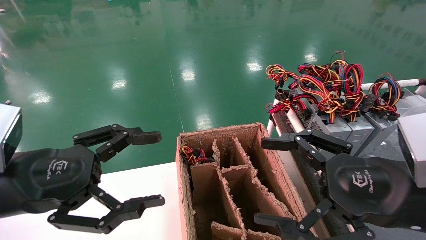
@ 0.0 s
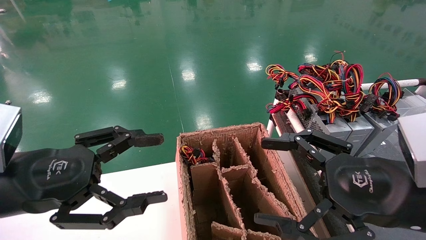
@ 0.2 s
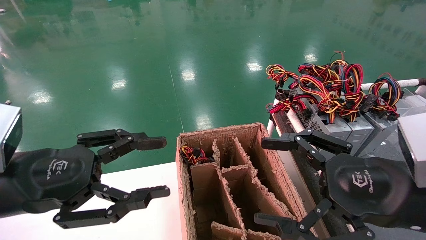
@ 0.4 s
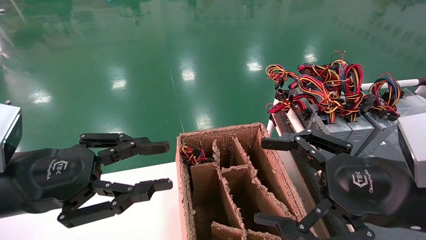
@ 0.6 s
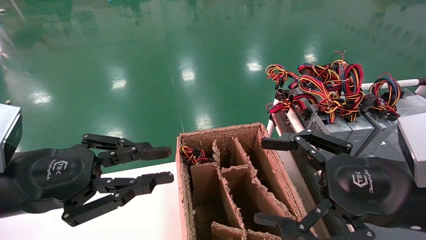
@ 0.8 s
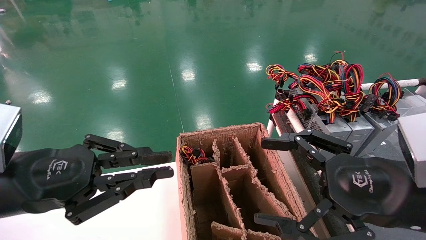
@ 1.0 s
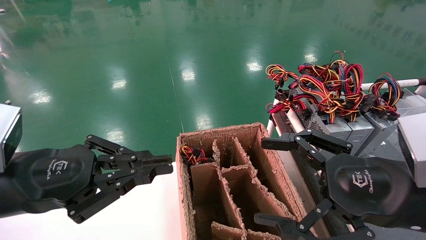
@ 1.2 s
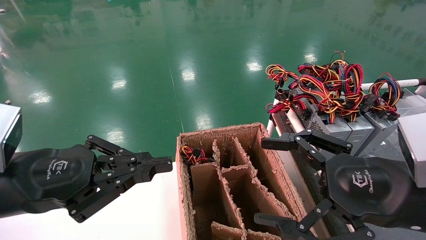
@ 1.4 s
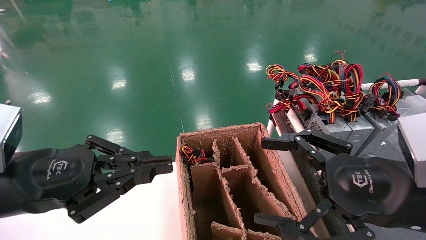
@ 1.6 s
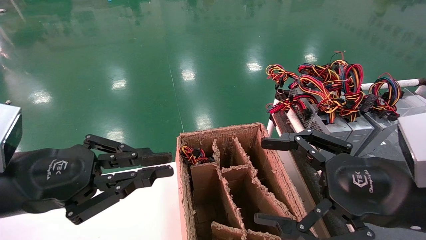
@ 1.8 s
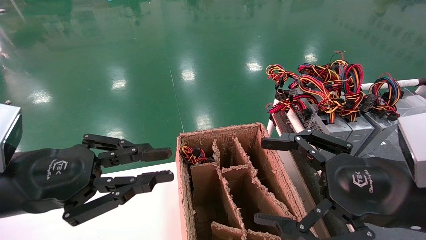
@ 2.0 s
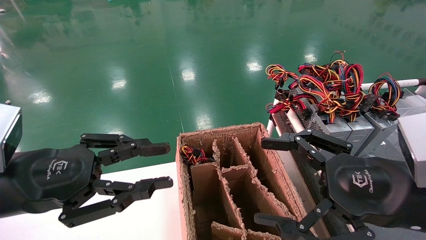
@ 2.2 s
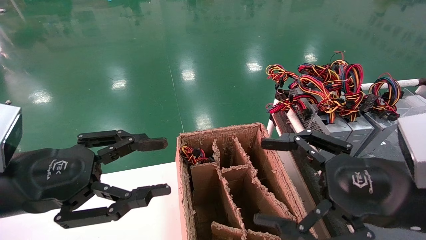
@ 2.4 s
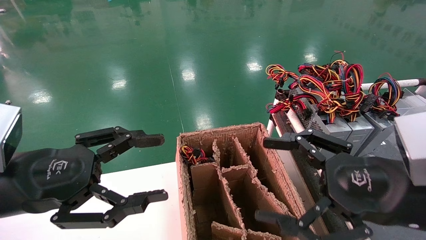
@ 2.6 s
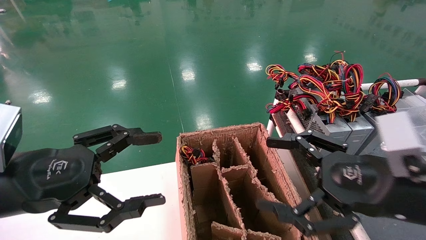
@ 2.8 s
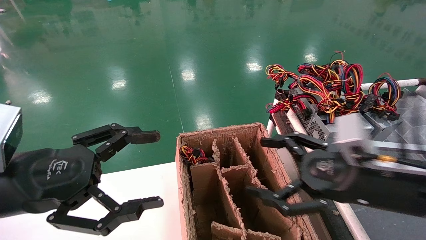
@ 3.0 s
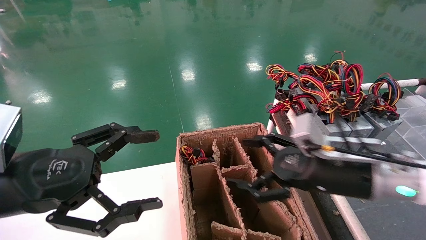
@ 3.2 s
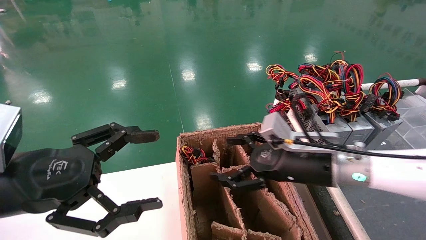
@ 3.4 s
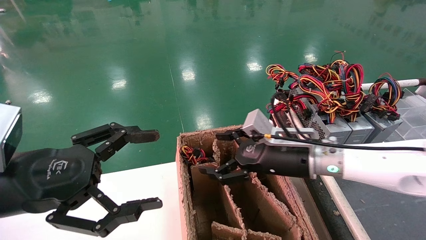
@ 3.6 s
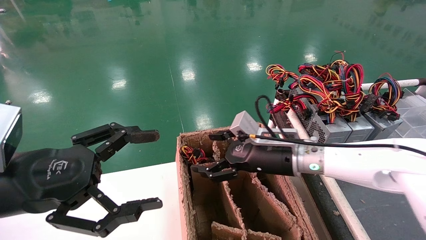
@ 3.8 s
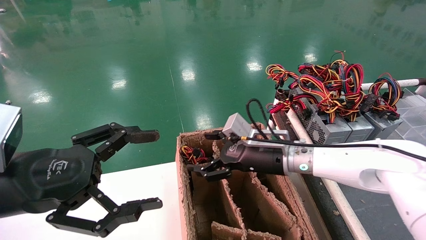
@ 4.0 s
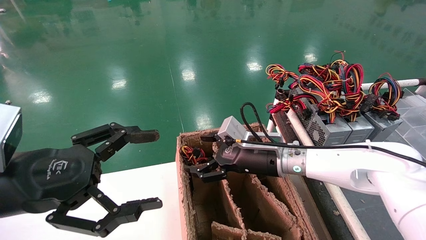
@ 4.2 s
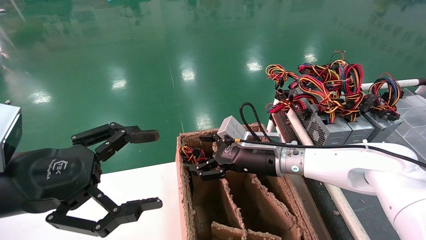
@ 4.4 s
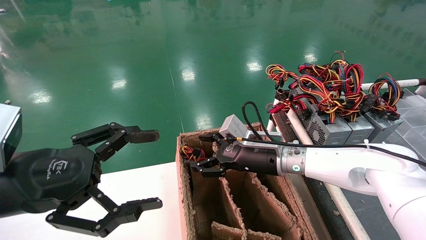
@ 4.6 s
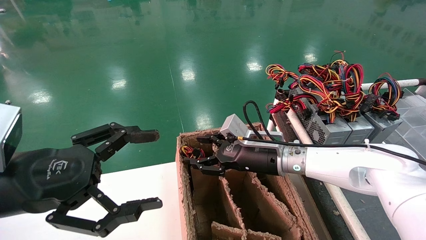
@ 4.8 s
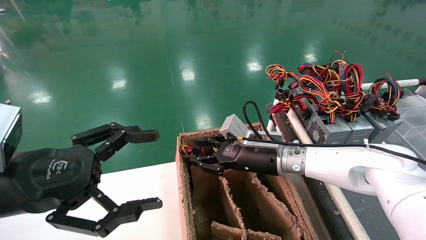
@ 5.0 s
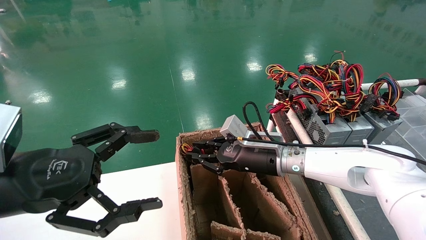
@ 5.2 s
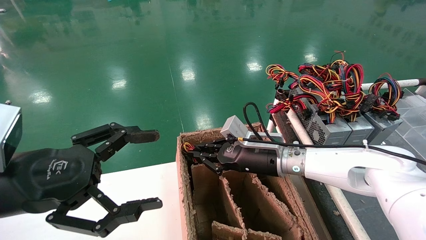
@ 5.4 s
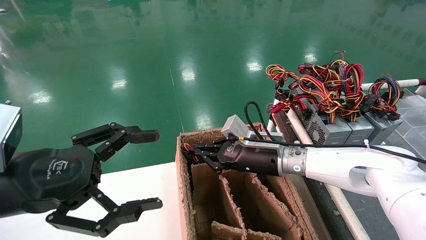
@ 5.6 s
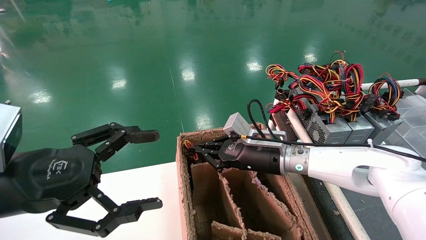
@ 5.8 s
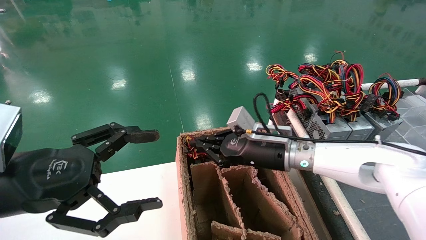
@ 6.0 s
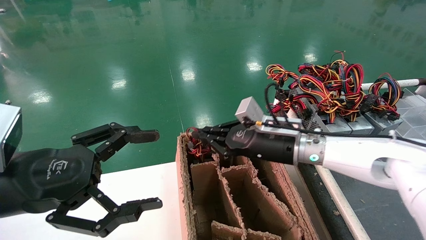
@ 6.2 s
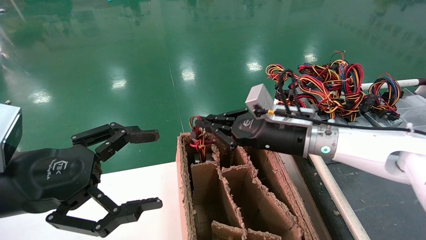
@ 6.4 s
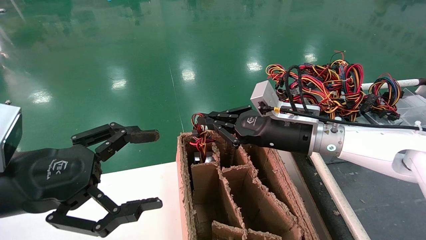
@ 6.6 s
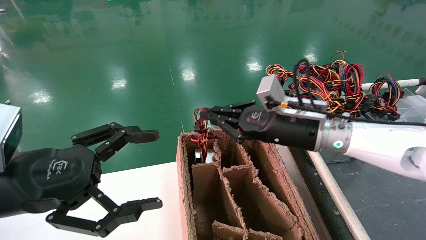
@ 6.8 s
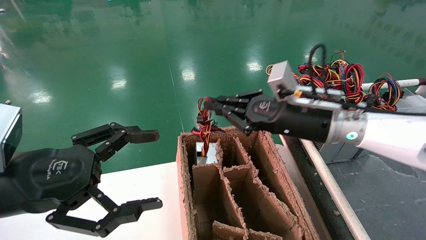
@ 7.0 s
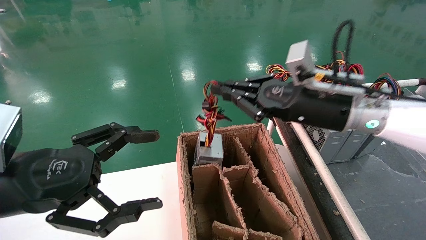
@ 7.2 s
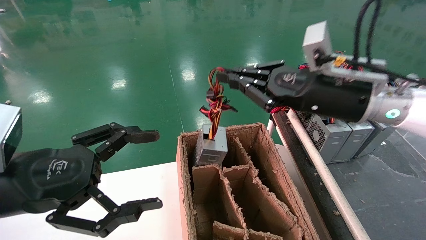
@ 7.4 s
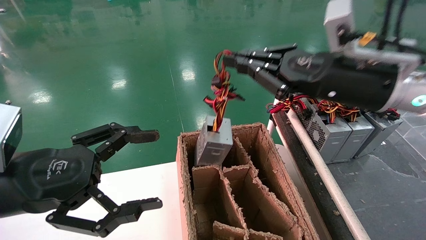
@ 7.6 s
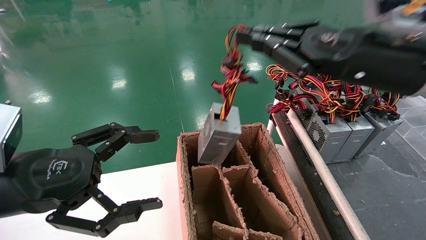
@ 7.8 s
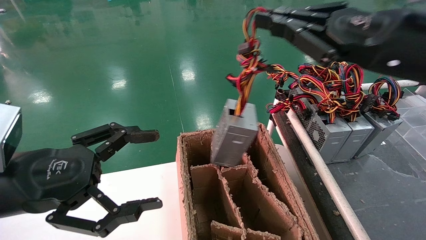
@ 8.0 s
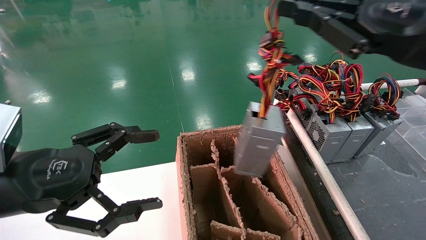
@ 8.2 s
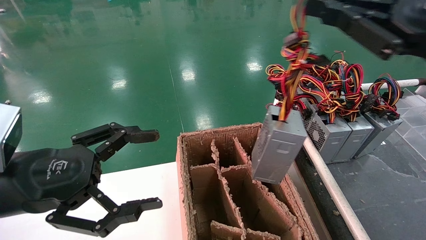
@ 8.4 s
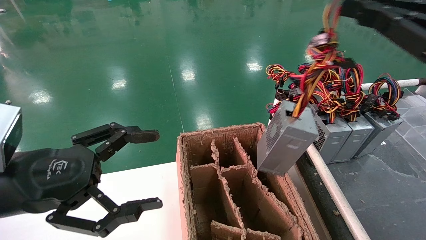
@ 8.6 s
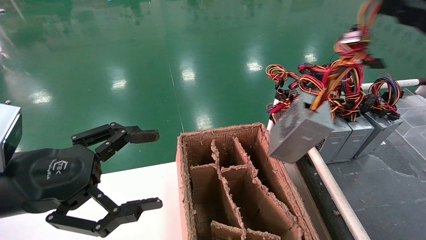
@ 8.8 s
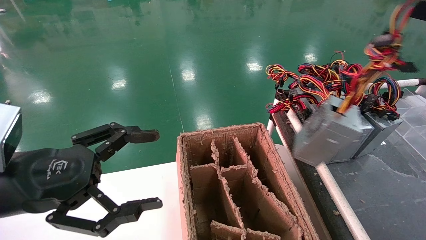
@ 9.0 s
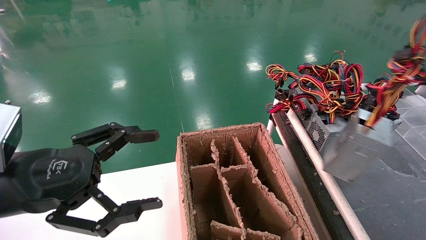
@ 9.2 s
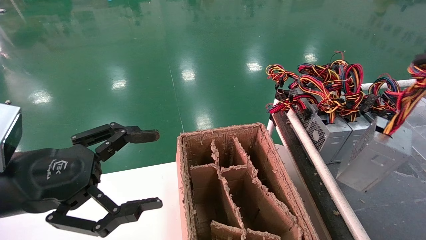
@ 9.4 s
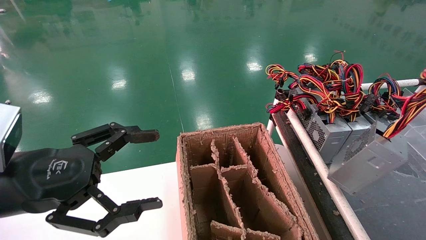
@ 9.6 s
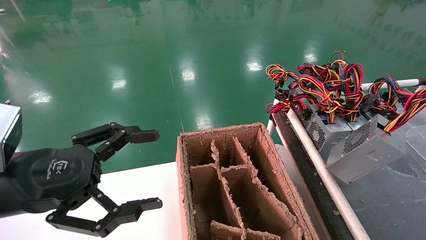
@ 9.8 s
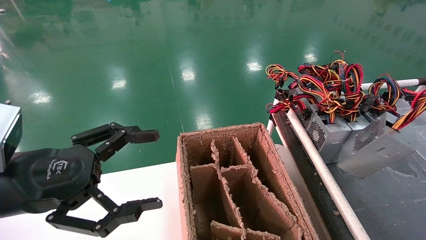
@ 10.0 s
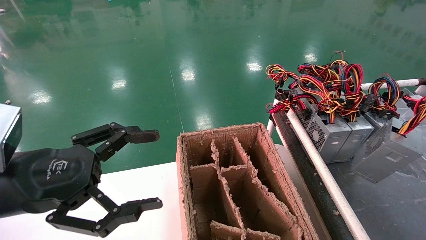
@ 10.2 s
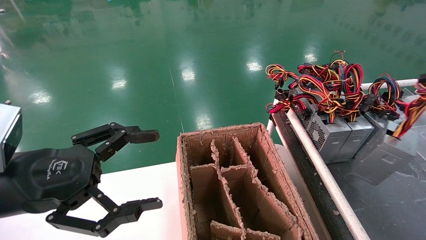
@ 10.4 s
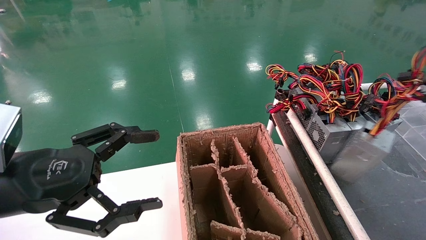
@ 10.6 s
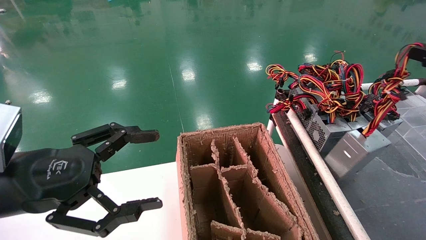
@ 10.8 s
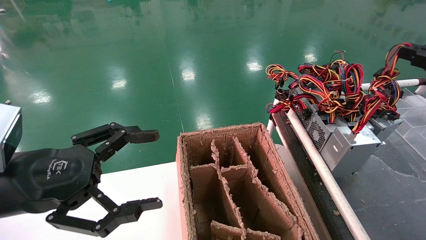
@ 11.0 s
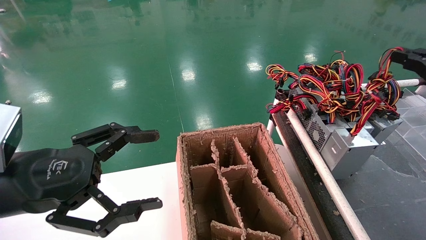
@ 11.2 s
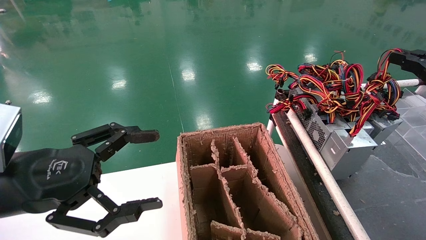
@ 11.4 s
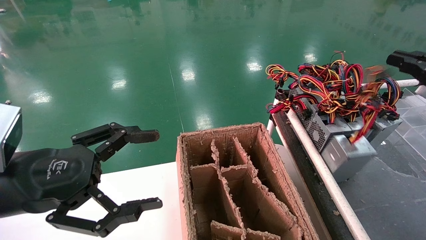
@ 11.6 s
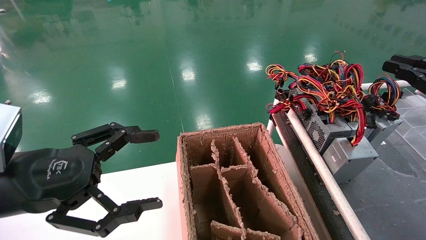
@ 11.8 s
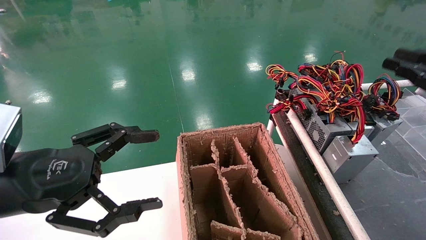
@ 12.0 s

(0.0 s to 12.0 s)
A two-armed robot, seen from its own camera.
Step, 0.4 s - 5.4 s: Grab and lift the power supply from the large box.
Step, 5.6 s - 11.8 s: Place the power supply on the operating table.
0.0 s - 1.6 s: The left gripper closes.
1.6 s - 3.0 s: The left gripper opens. The right gripper moves forward, approximately 5 cm.
3.0 s - 4.4 s: The right gripper goes roughly 20 cm forward and to the left.
4.4 s - 6.0 s: The right gripper closes.
6.0 s - 7.6 s: The right gripper heads upward, to the right and backward, covering about 20 cm.
7.6 s - 9.0 s: The right gripper shifts roughly 25 cm to the right and backward.
9.0 s - 10.4 s: The right gripper travels to the right by approximately 10 cm.
10.4 s - 12.0 s: The right gripper moves forward, about 5 cm.

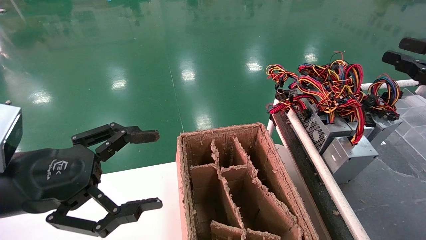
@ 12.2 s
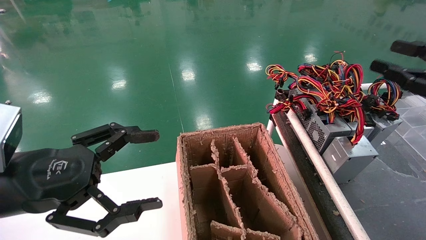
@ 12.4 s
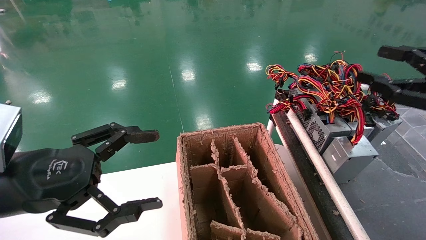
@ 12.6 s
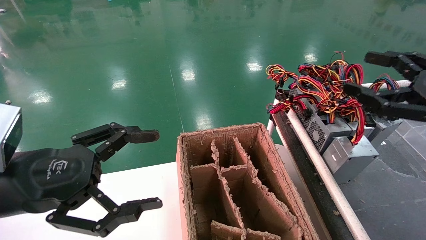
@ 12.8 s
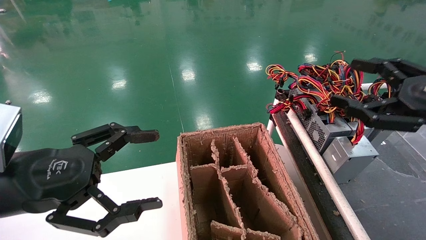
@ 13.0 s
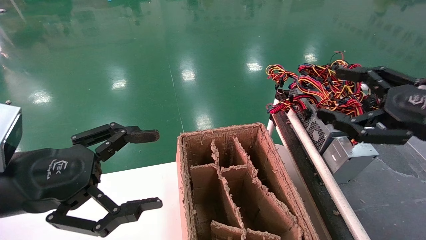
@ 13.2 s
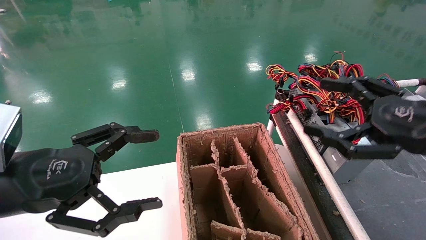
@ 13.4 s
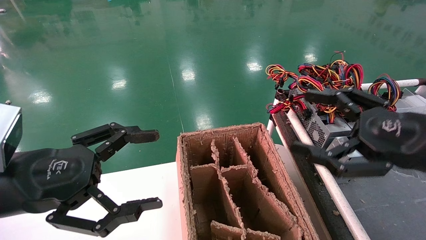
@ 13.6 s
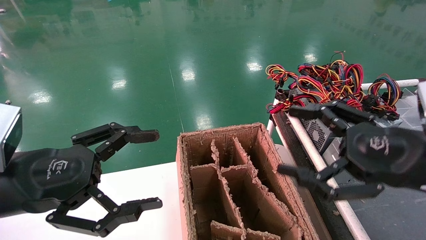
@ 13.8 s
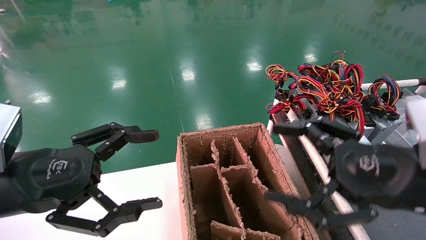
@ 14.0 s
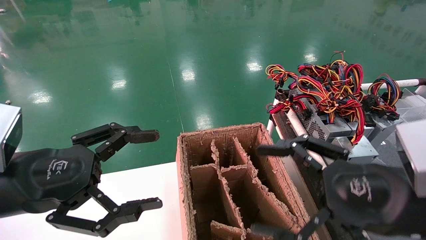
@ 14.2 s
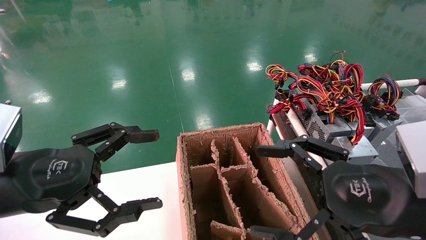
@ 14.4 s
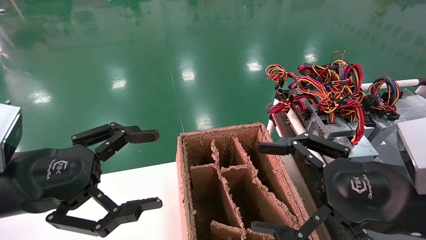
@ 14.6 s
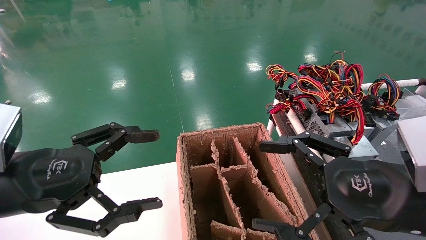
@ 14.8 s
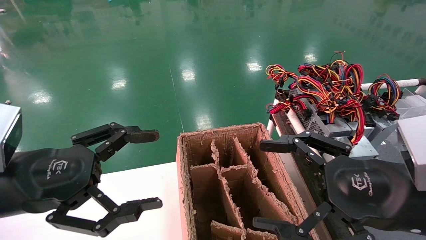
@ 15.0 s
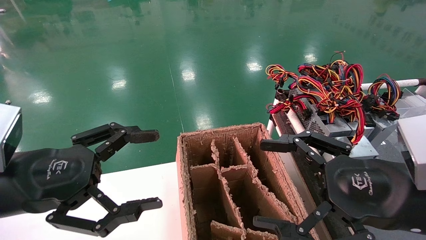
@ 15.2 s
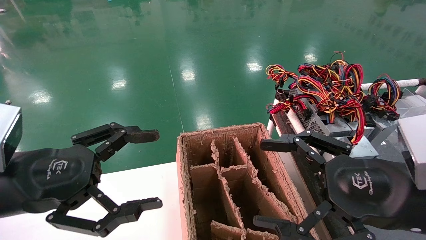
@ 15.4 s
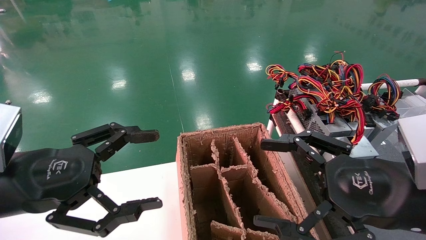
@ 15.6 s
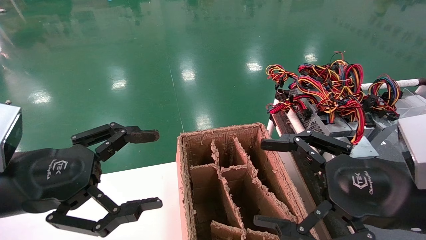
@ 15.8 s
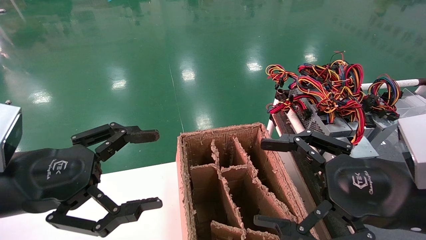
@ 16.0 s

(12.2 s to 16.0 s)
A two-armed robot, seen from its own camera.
12.2 s - 13.4 s: The right gripper travels to the left by roughly 10 cm, and opens its fingers.
13.4 s - 14.8 s: The right gripper goes some 10 cm to the left.
14.8 s - 16.0 s: Both grippers stay about where they are.
